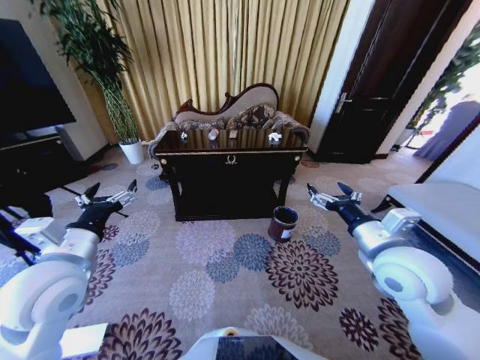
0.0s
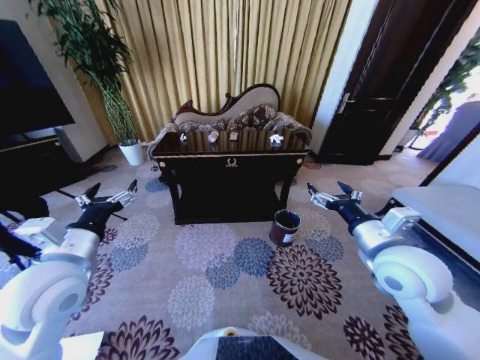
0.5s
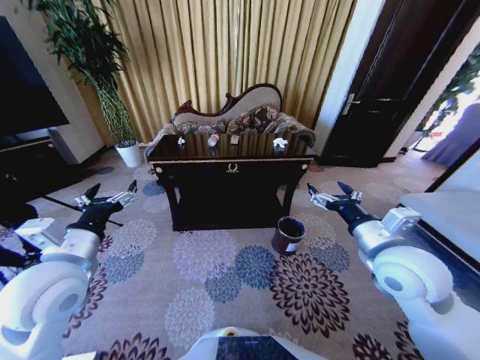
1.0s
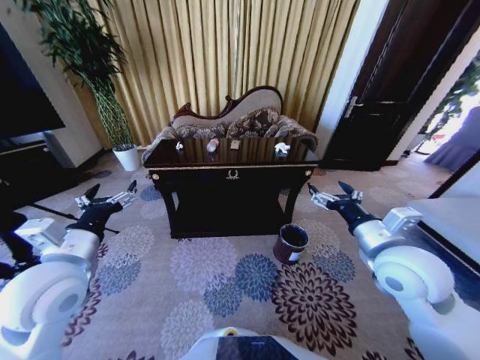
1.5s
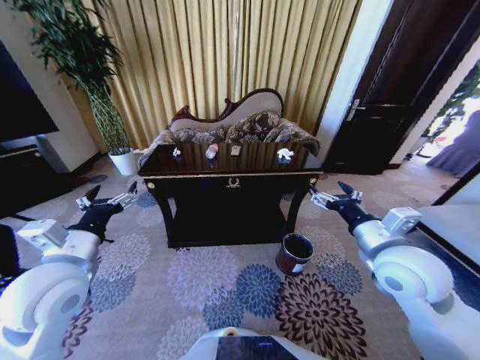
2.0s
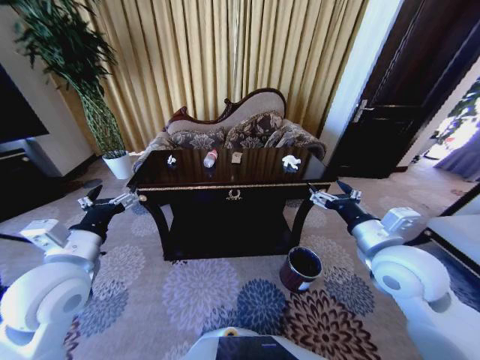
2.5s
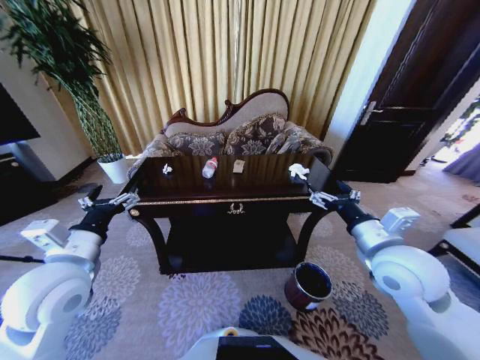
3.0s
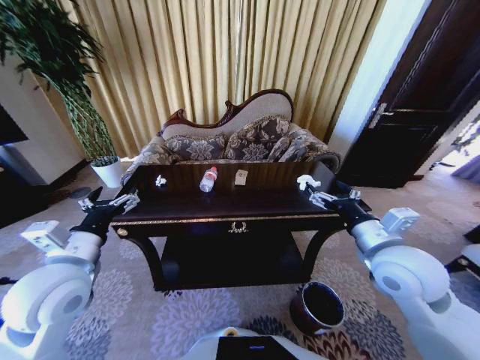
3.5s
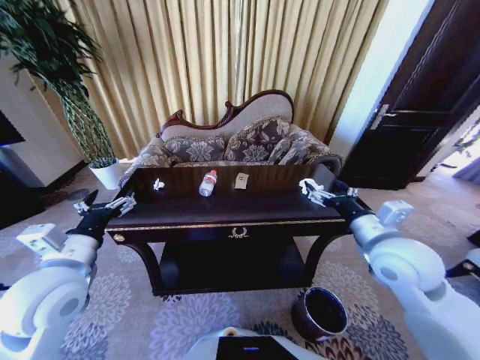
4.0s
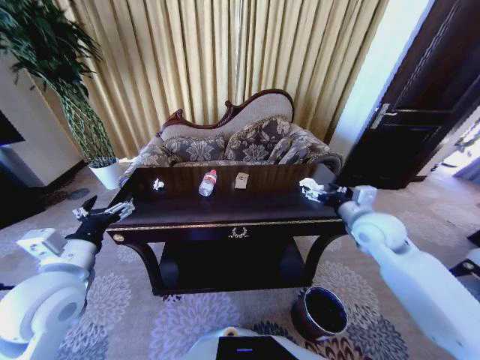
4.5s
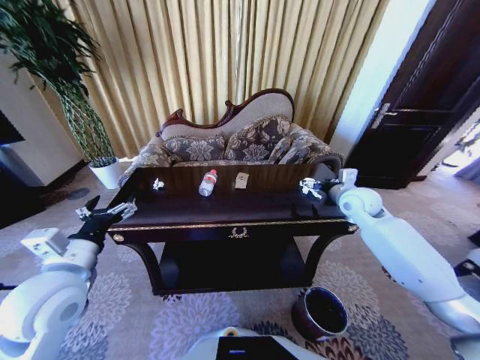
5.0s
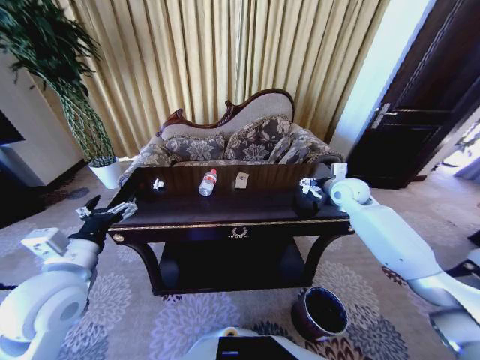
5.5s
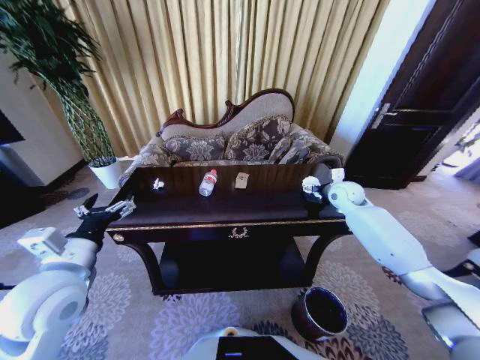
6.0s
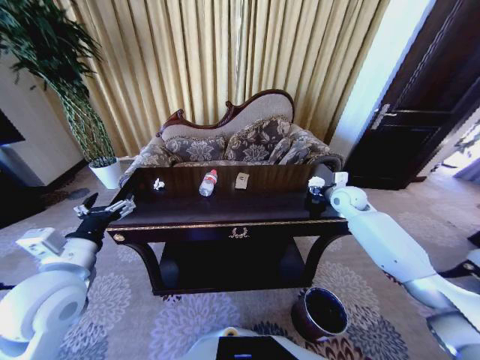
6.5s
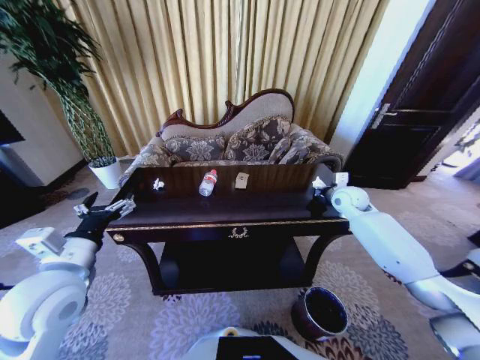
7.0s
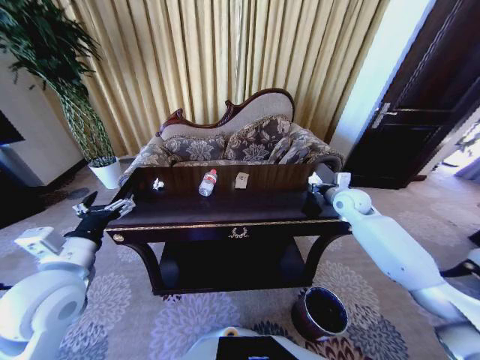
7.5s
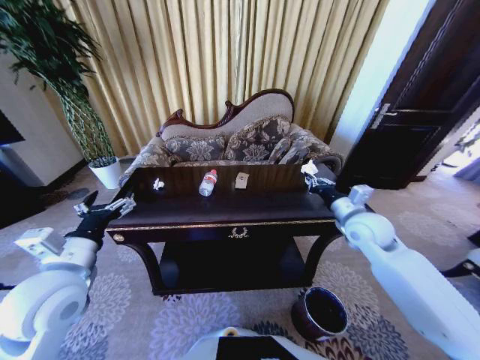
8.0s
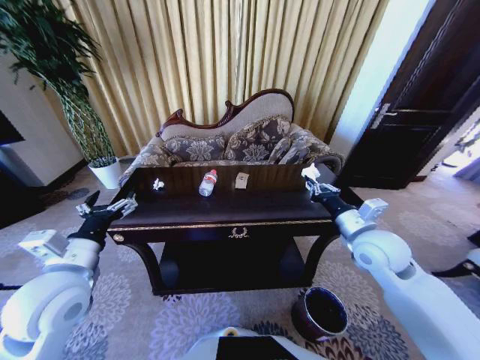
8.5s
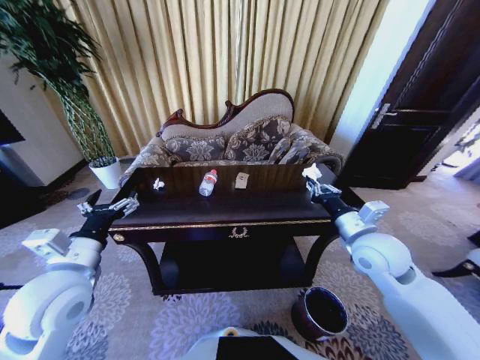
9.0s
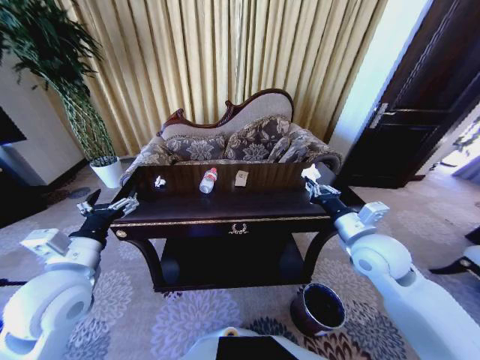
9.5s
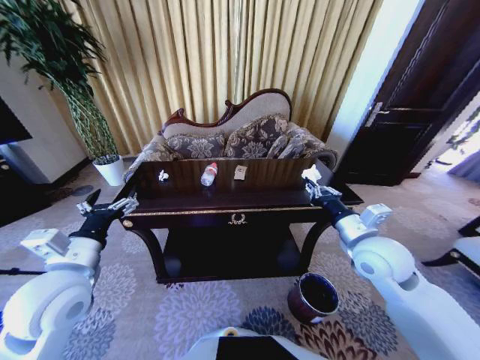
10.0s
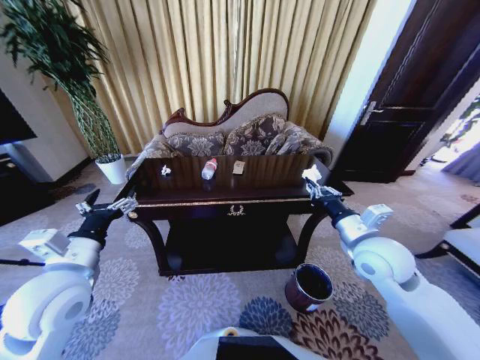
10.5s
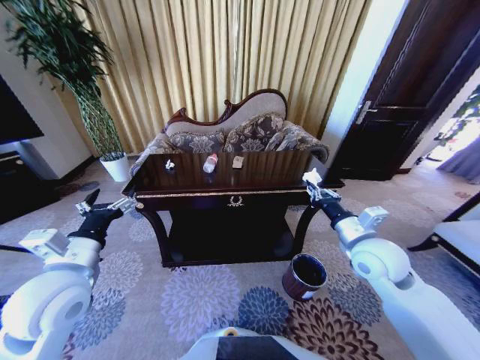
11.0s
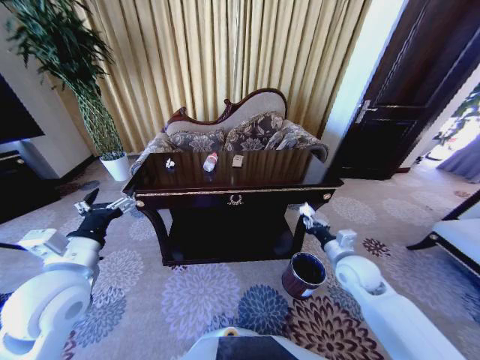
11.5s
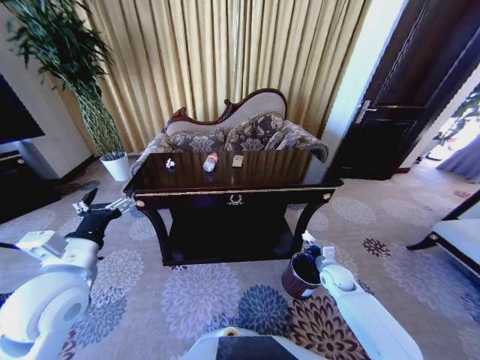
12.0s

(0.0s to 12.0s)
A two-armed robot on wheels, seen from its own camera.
Task of the whole recording: Move to the front of the table and place the trash on the table into the trash bin.
4.0s - 6.0s: The right gripper moves forward, approximately 25 cm.
6.0s - 8.0s: The right gripper shifts approximately 15 cm backward, and closes its fingers.
8.0s - 10.0s: The right gripper heads backward, covering approximately 10 cm.
10.0s - 12.0s: The right gripper shifts roughly 25 cm downward.

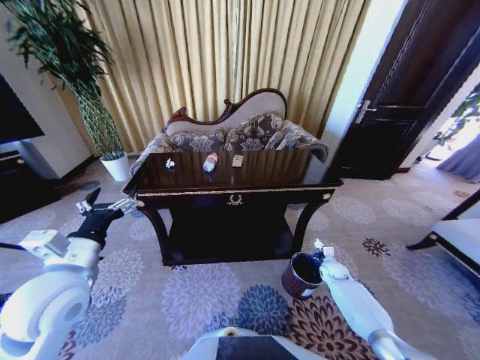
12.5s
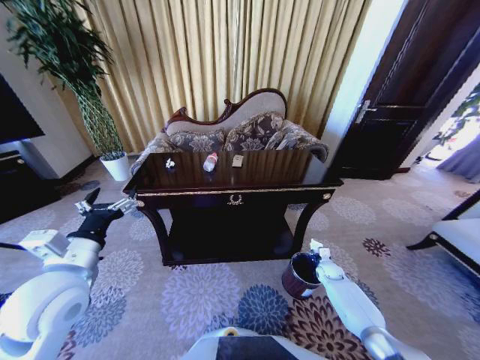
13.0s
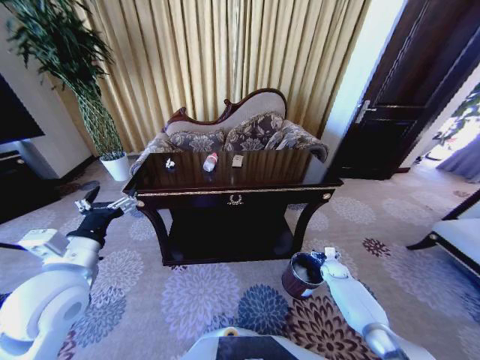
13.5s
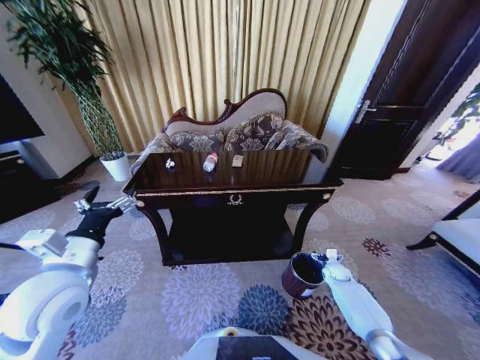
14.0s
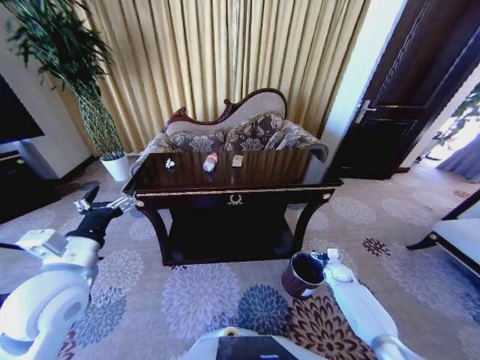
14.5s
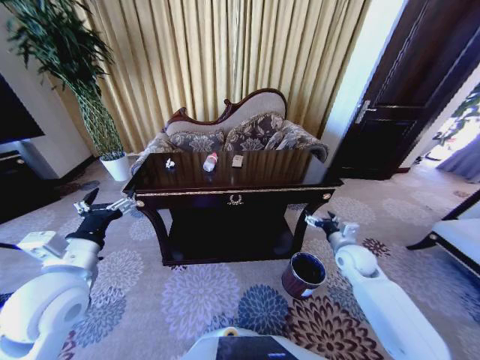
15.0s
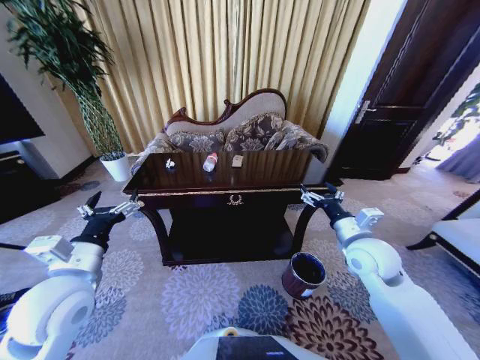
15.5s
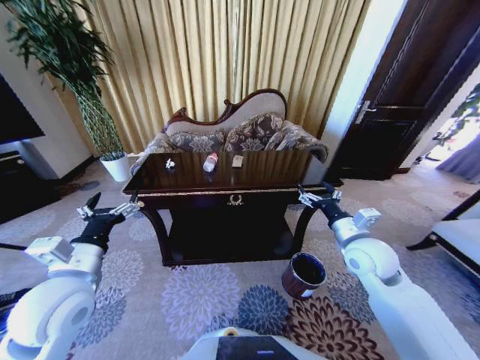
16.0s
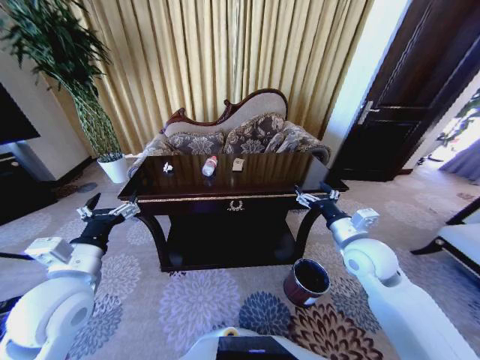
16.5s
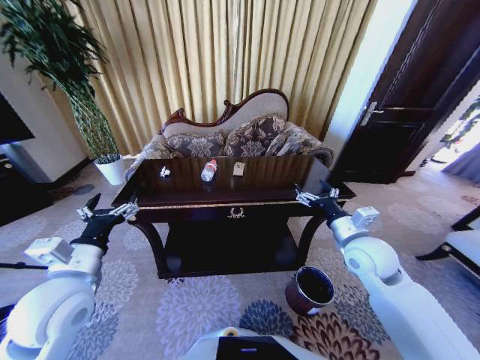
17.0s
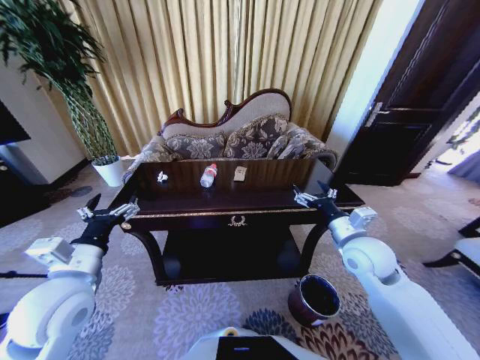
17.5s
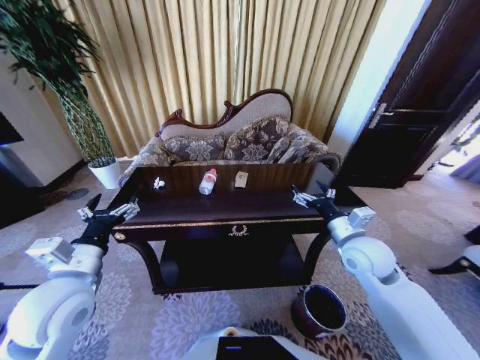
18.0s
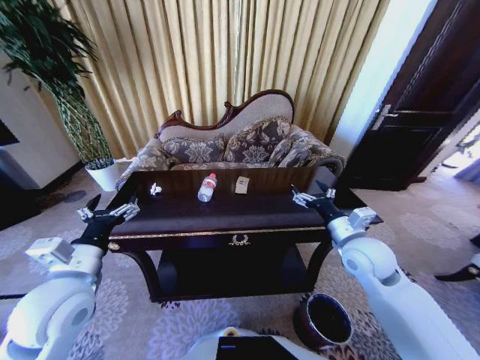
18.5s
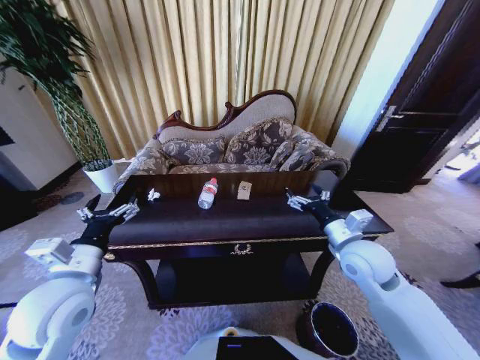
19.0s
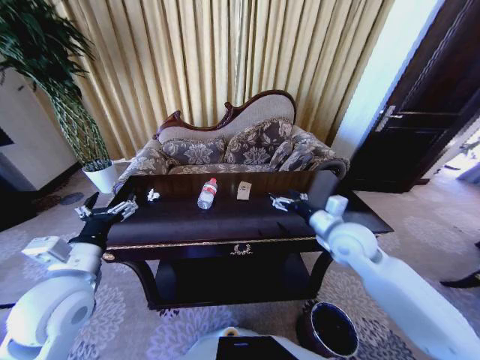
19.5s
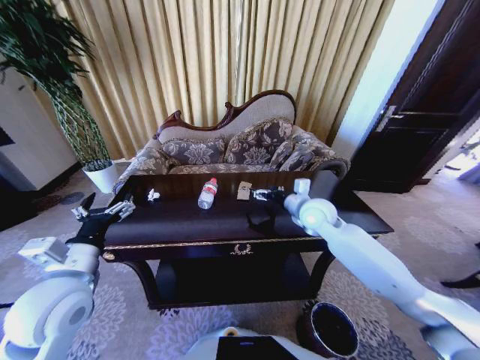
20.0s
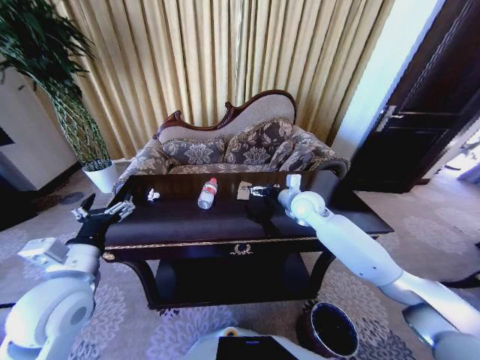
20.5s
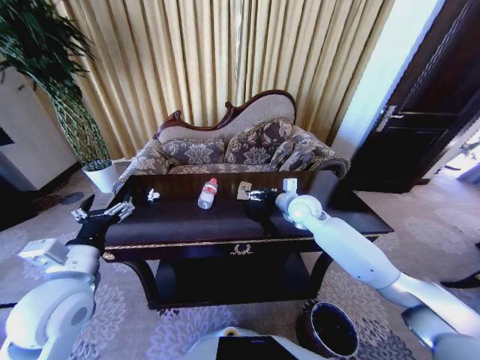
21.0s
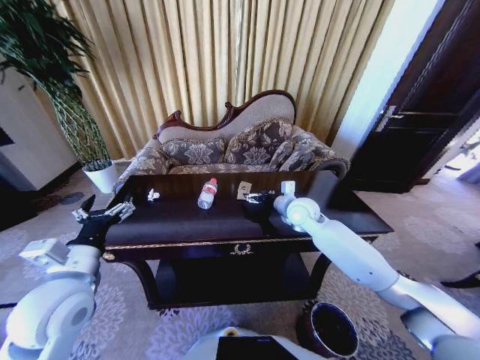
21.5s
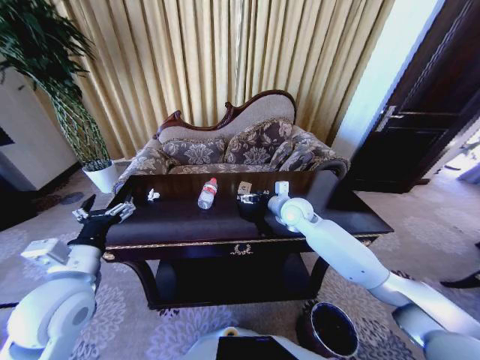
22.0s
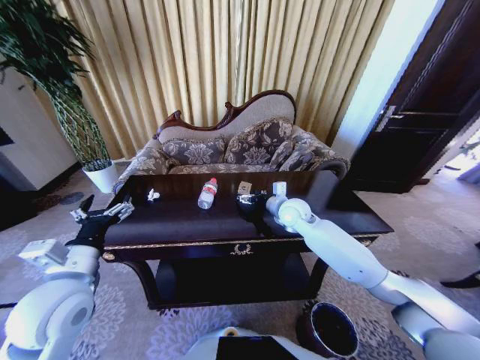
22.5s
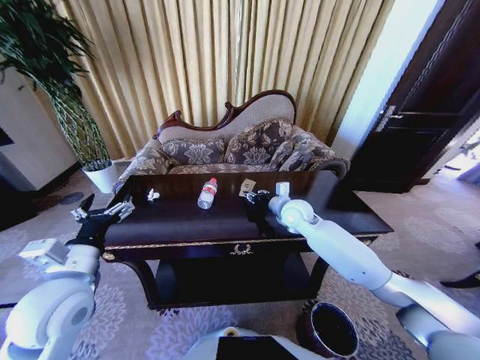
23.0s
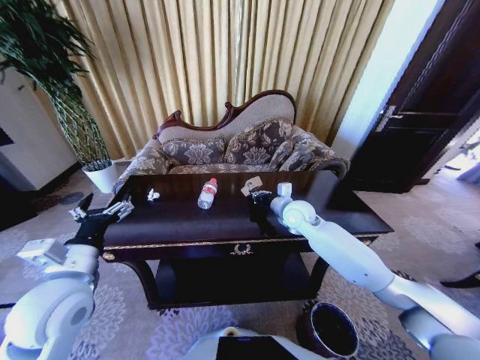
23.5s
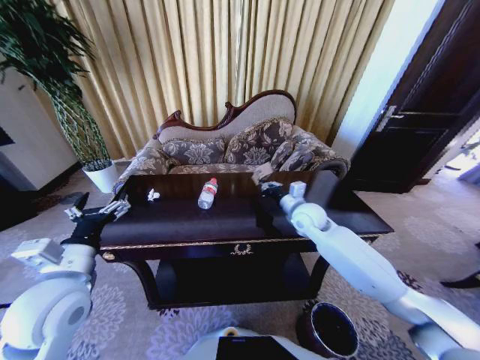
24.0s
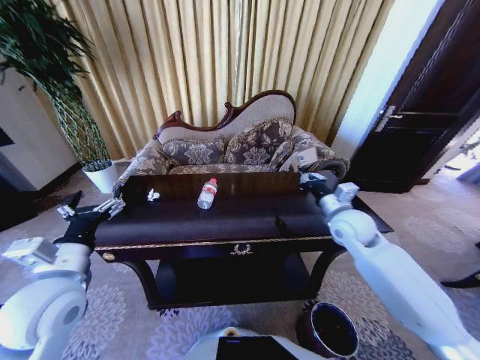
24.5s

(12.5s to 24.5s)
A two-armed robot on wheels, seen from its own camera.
Task of the whole recording: Move to the front of the table and place the trash on the table into the trash bin.
12.5s - 14.5s: The right gripper opens.
14.5s - 16.5s: The right gripper shifts approximately 30 cm upward.
18.5s - 20.5s: The right gripper goes roughly 20 cm forward and to the left.
20.5s - 22.5s: The grippers stay close to where they were, moving slightly.
22.5s - 24.5s: The right gripper goes some 15 cm to the right and backward, and closes up.

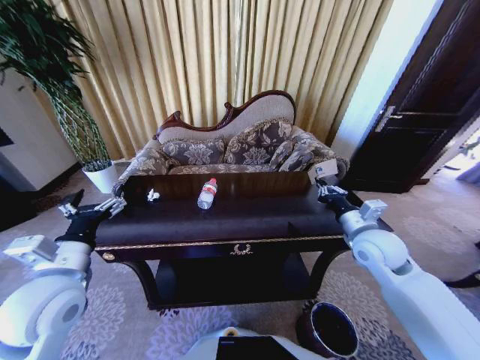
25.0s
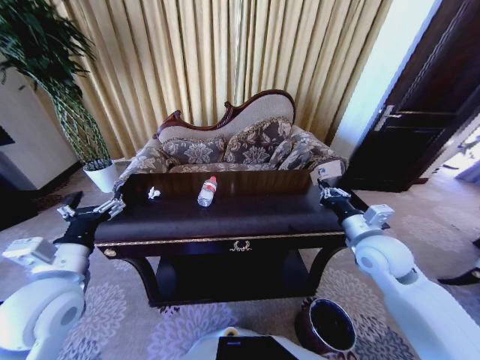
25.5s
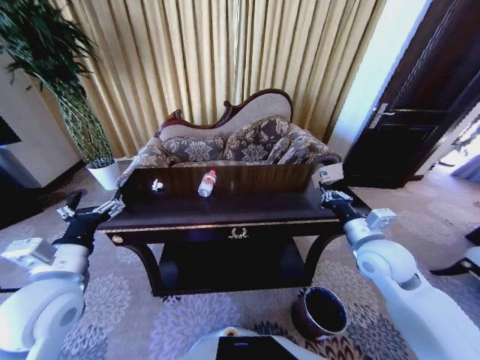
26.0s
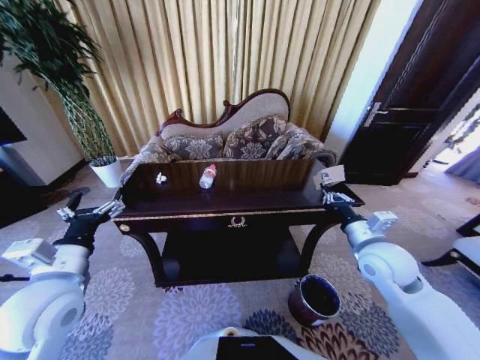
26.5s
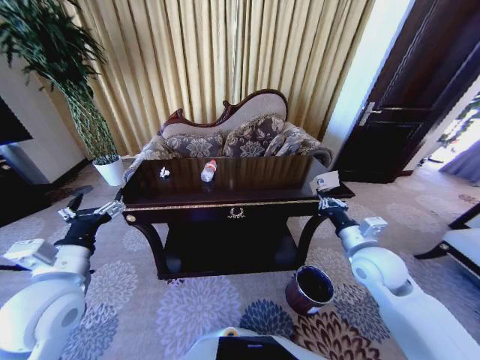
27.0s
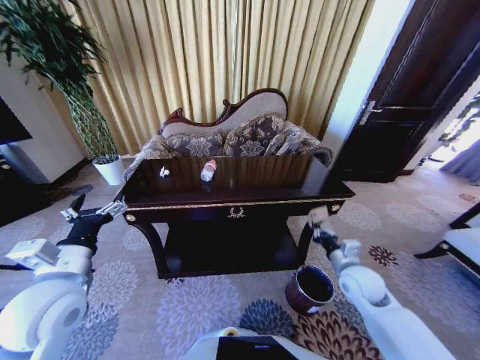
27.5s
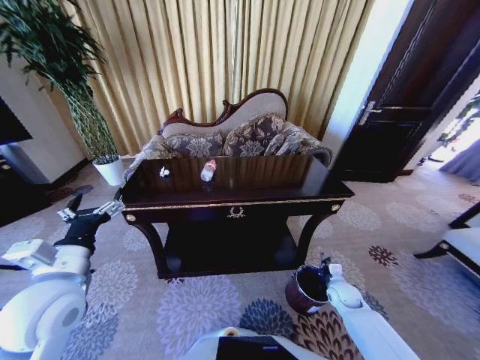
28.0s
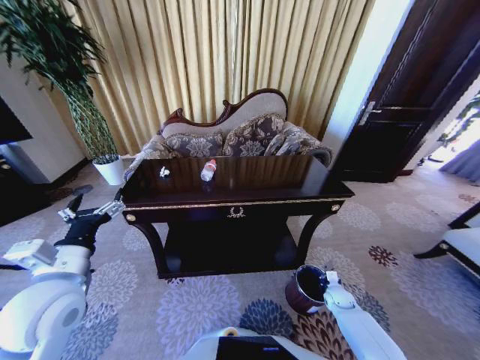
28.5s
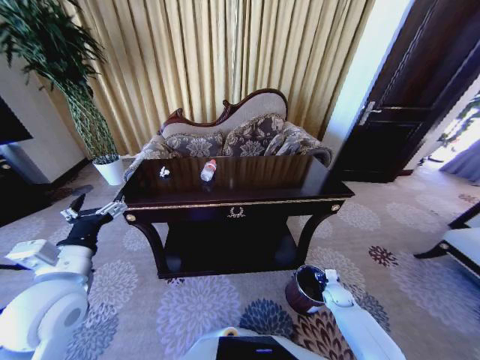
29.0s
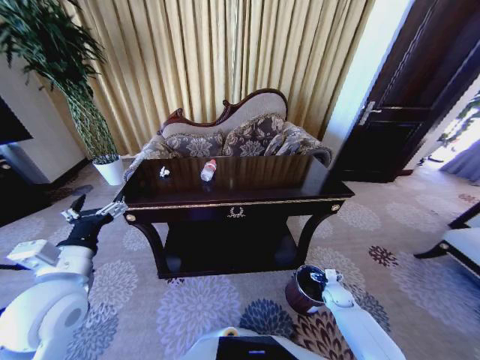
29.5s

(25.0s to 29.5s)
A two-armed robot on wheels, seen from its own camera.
Task of the whole recording: Move to the front of the table and place the trash on the table into the trash bin.
27.0s - 29.5s: The right gripper is displaced downward by about 35 cm, and opens its fingers.
